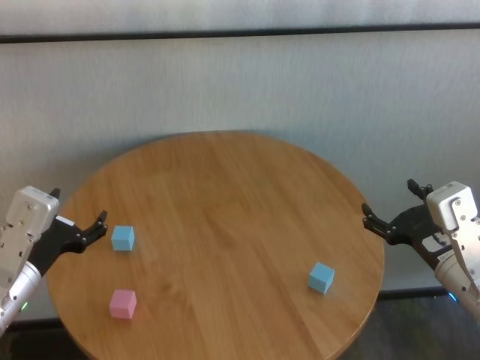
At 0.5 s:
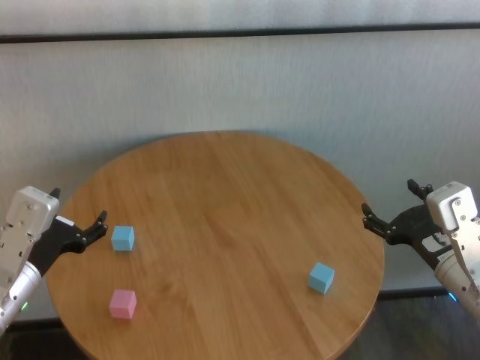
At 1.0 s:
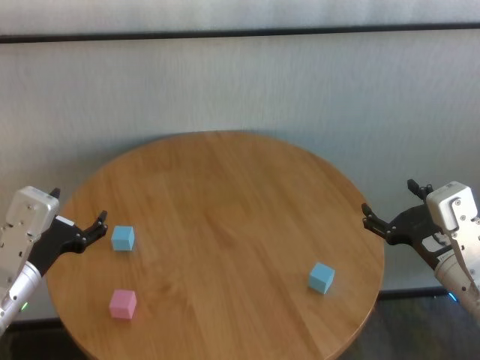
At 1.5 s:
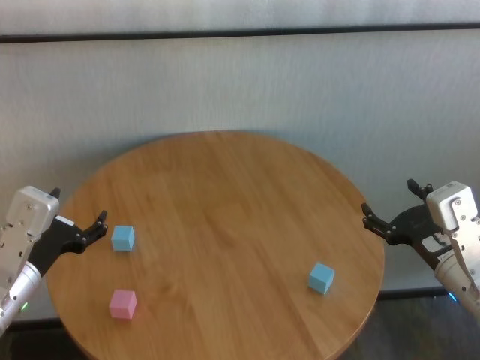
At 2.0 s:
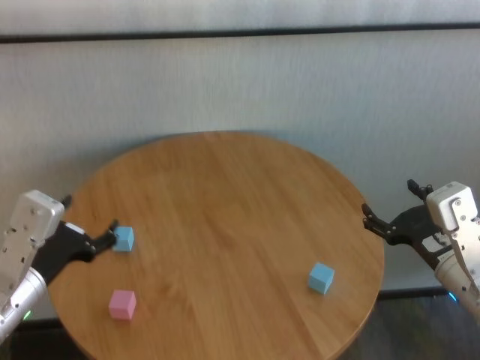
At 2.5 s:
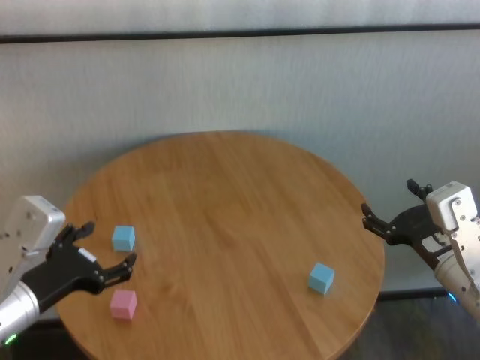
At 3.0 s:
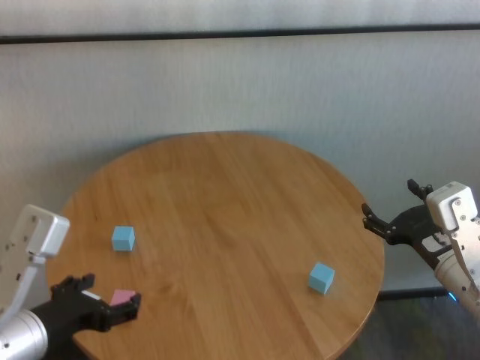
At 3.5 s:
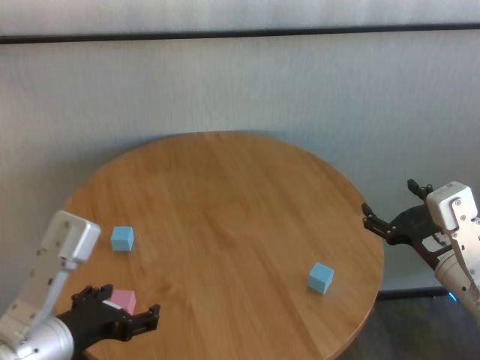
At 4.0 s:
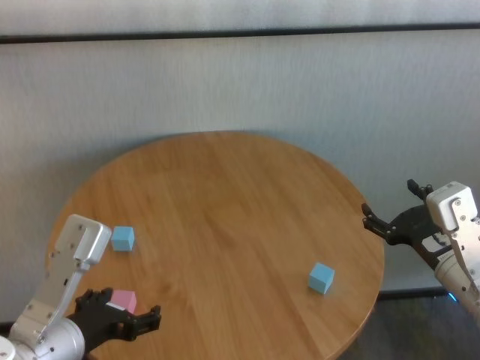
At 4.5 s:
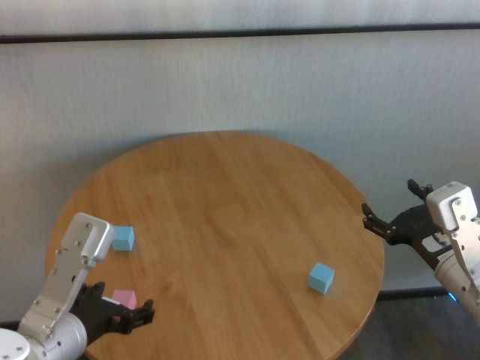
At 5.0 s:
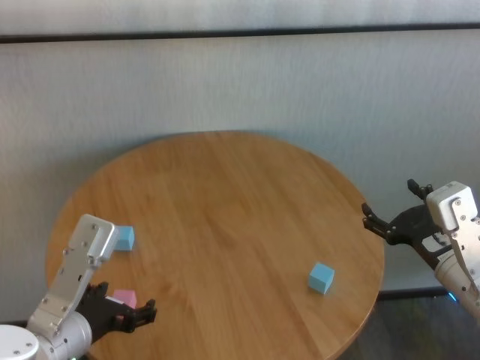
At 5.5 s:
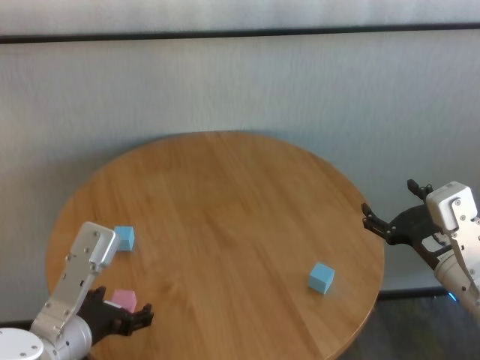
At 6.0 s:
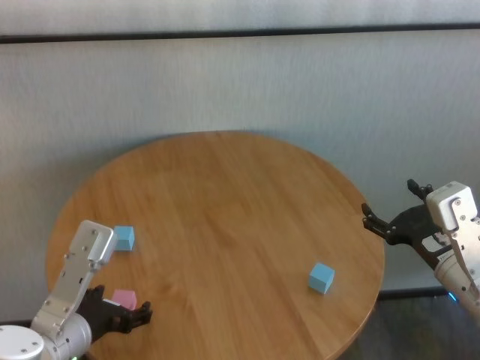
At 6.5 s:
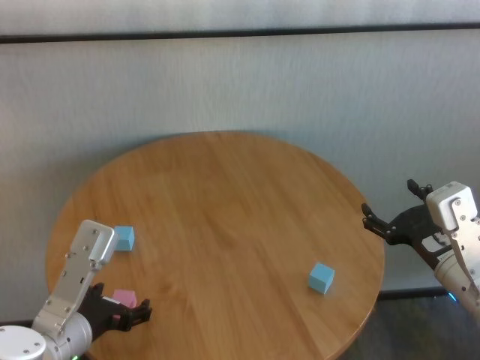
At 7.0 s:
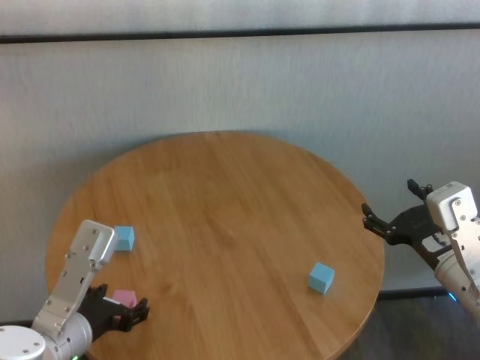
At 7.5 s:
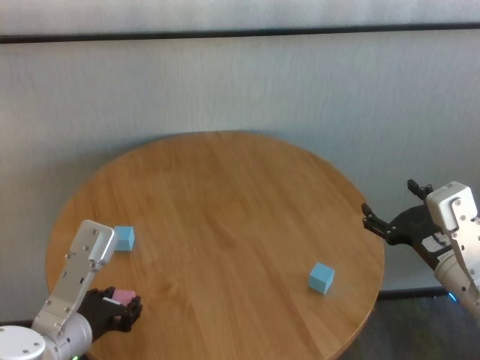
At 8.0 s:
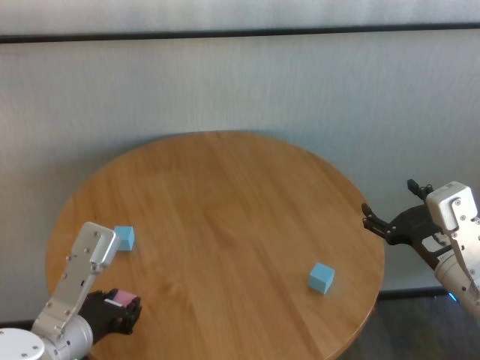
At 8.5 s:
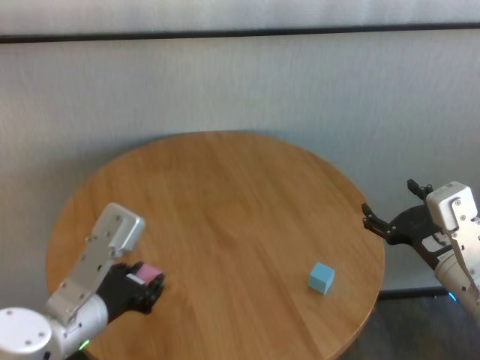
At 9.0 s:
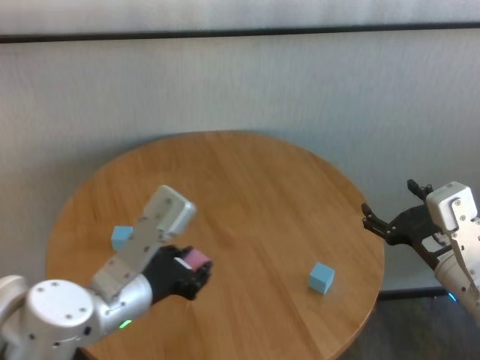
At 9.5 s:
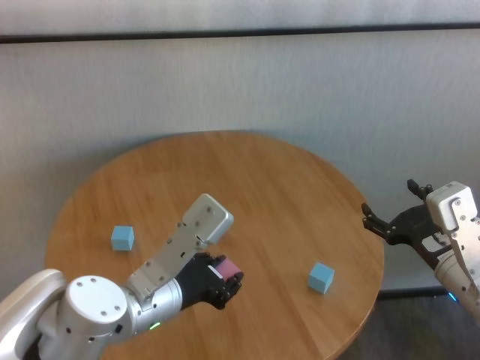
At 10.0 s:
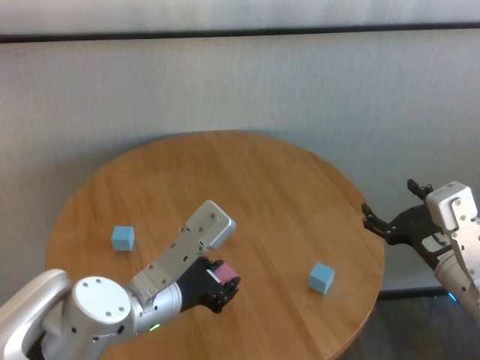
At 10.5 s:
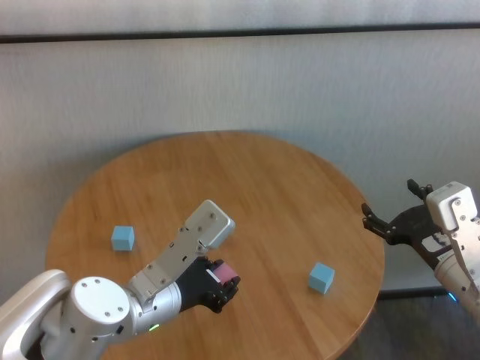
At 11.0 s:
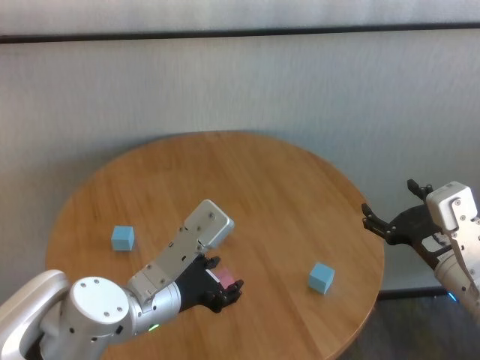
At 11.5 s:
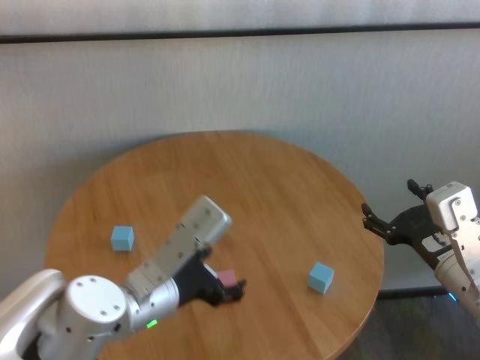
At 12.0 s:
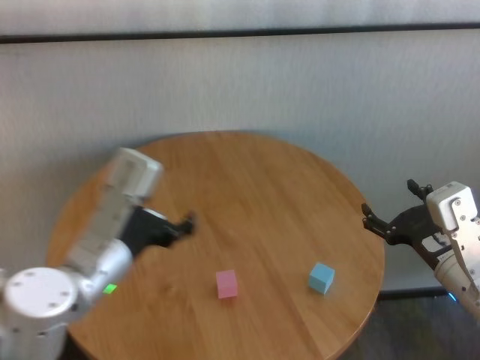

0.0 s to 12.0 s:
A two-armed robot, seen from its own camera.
Task of the whole recording: stack building blocks on the table.
Step, 0.0 to 7.5 s: Grasp the pink building block with left gripper.
Step, 8.0 to 11.0 s: Place the pink building block in the center of table with left gripper.

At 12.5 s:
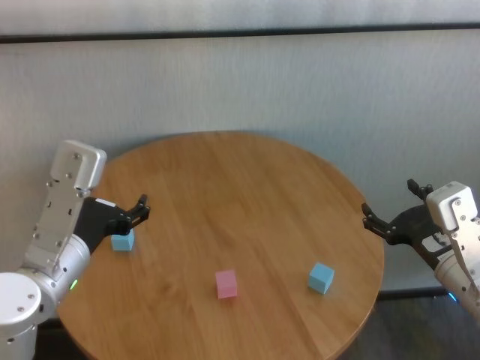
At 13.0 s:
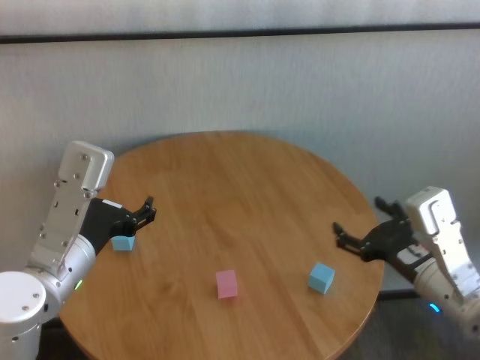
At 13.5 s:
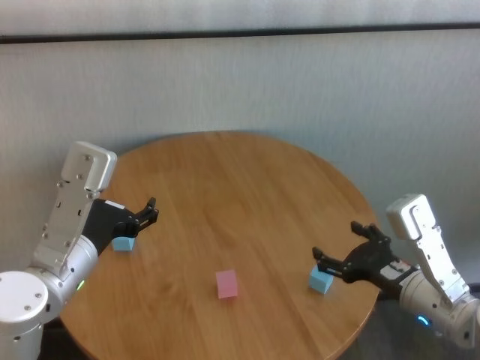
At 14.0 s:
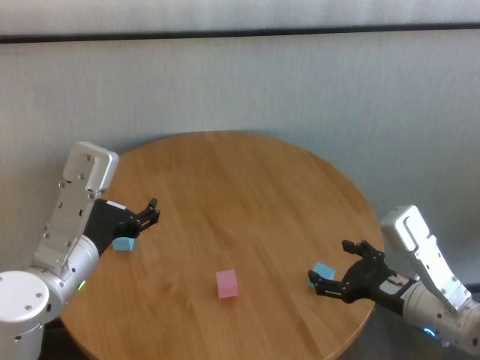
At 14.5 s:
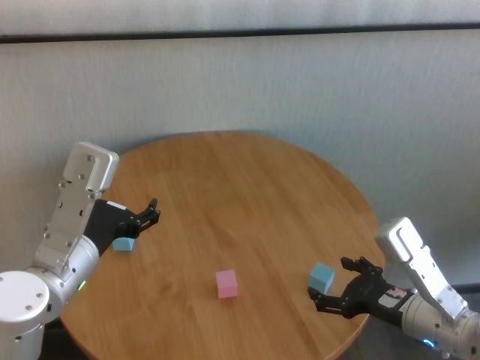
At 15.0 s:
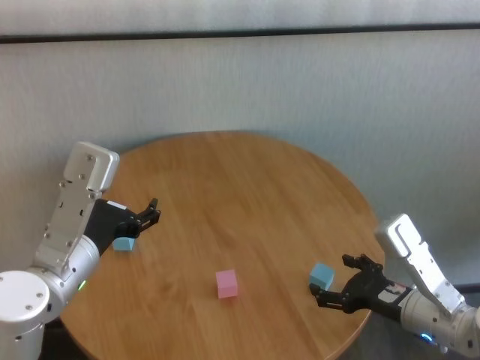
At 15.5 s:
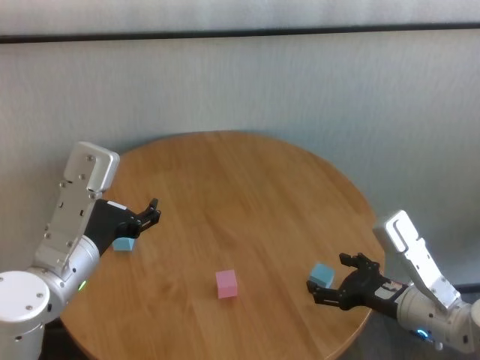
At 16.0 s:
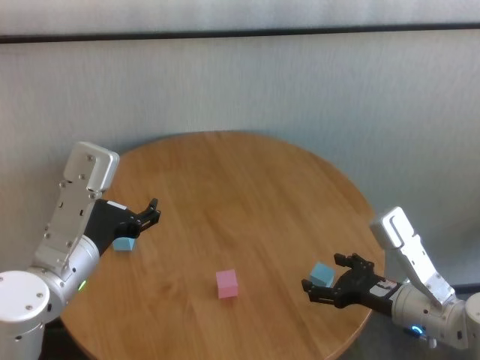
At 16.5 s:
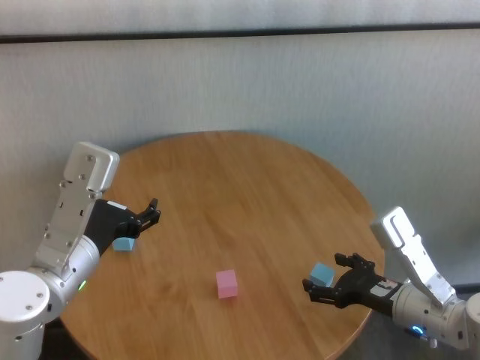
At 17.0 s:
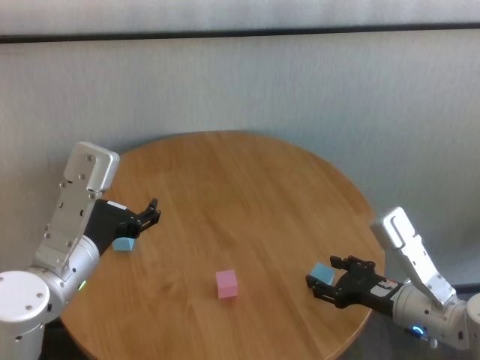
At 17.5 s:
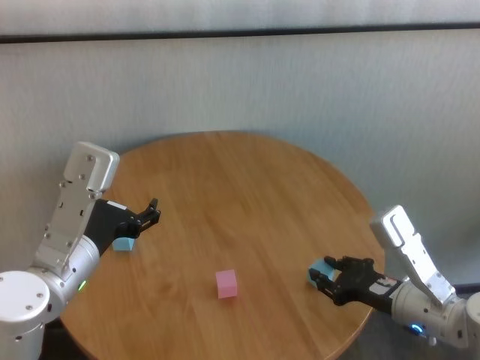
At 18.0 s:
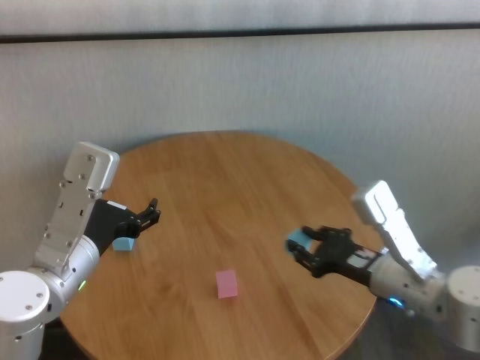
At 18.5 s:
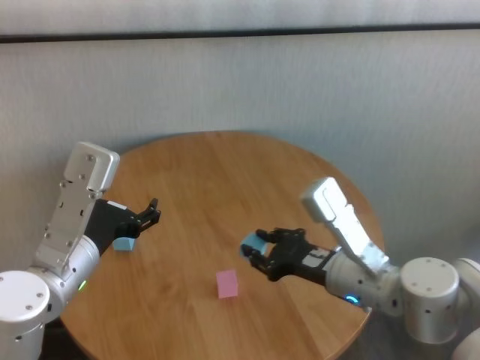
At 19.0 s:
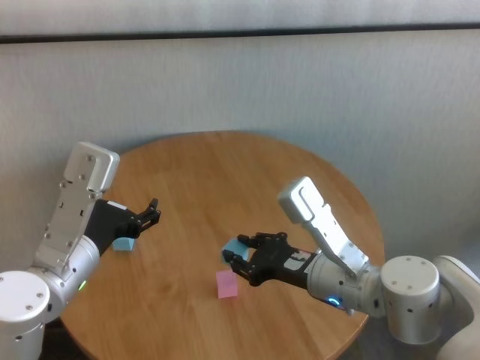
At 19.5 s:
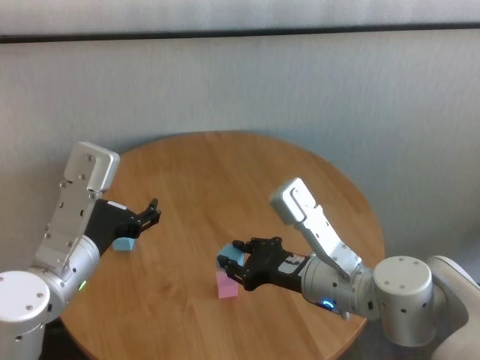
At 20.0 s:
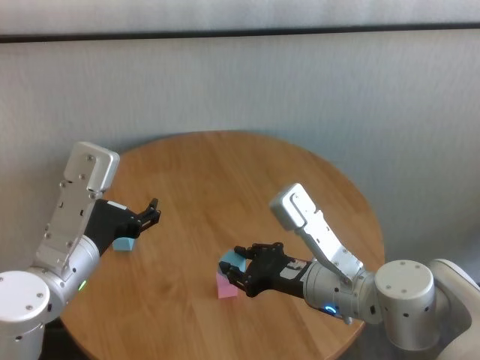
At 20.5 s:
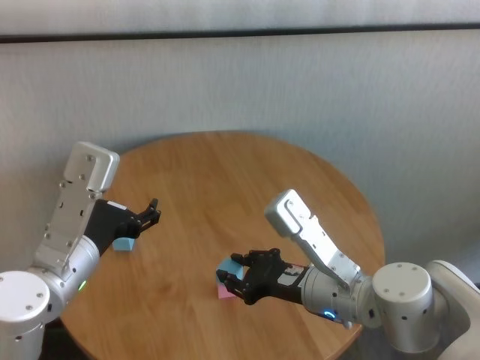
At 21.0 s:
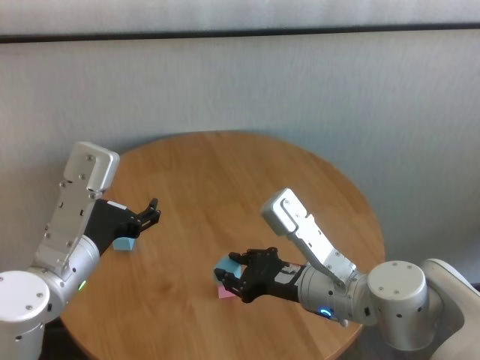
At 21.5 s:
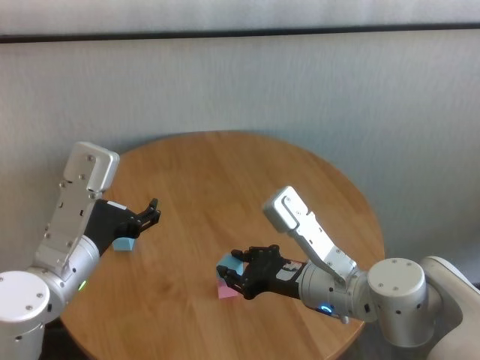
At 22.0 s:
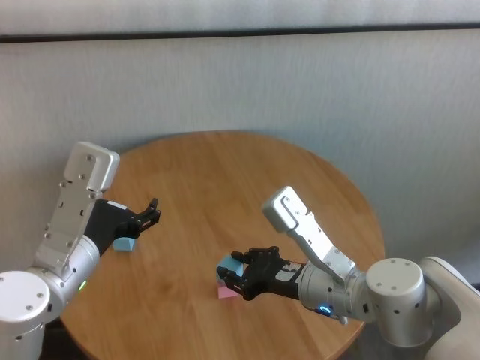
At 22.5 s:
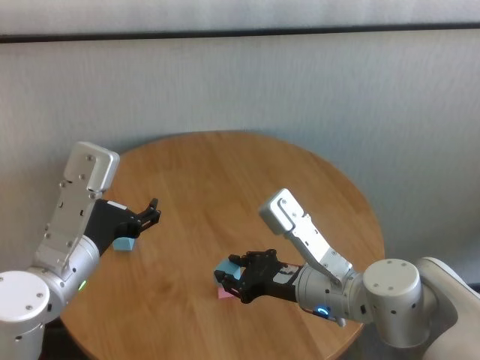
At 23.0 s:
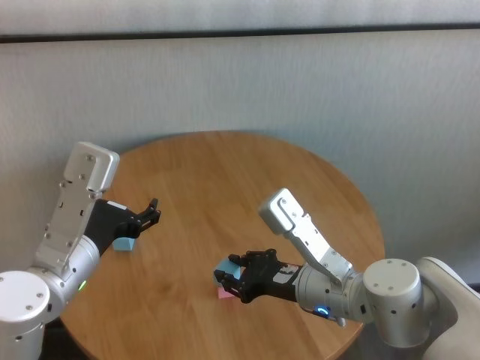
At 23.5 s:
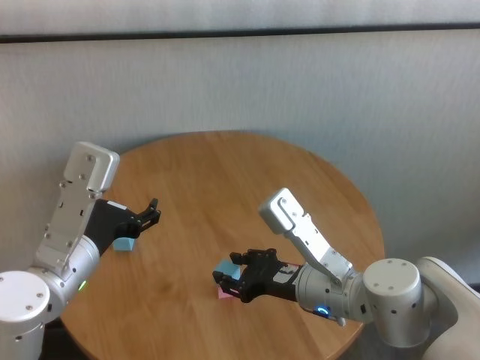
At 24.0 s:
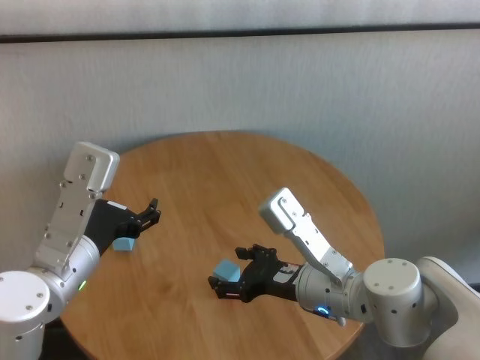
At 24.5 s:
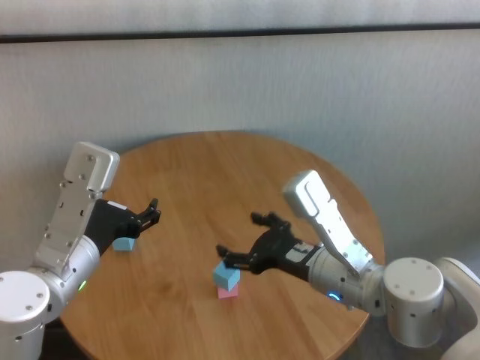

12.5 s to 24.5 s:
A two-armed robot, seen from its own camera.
Task of the whole recording: stack building blocks on the table.
Step, 12.5 to 17.0 s: Grasp the blue building block with right gripper.
Step, 17.5 to 23.5 s: Place the blue building block on the pink building blocks with right gripper.

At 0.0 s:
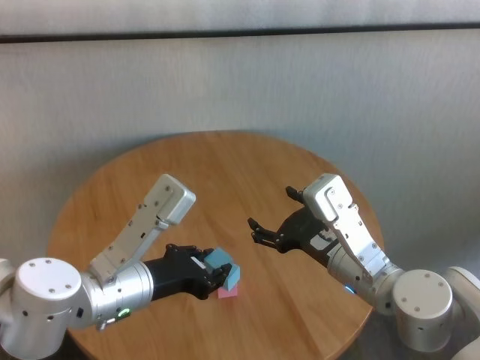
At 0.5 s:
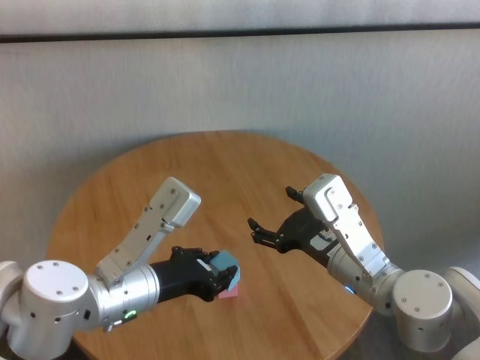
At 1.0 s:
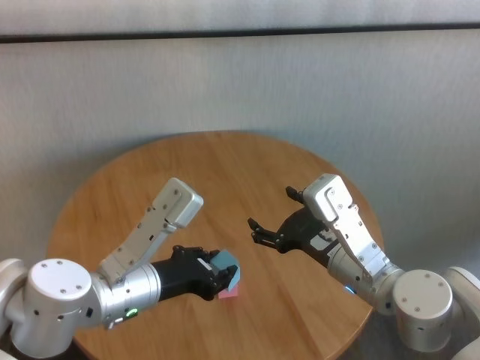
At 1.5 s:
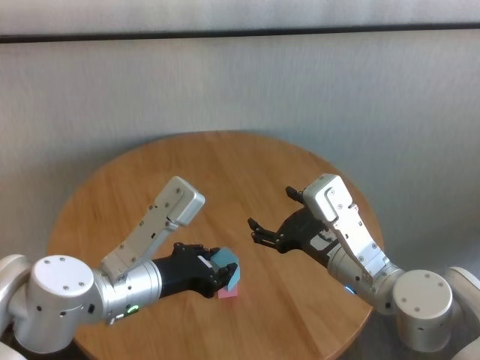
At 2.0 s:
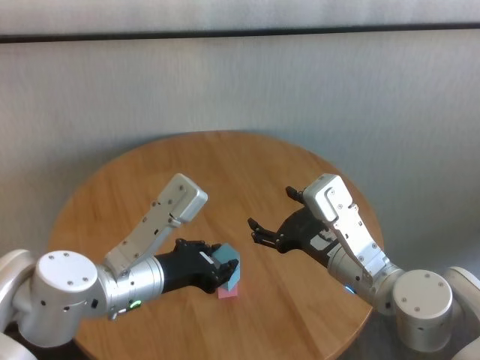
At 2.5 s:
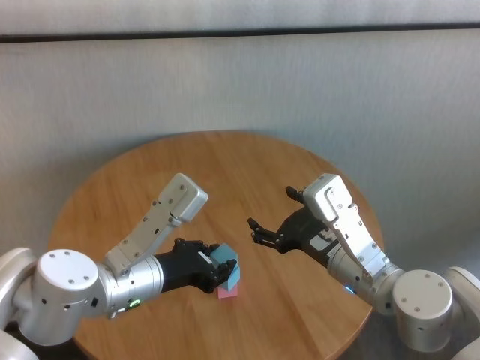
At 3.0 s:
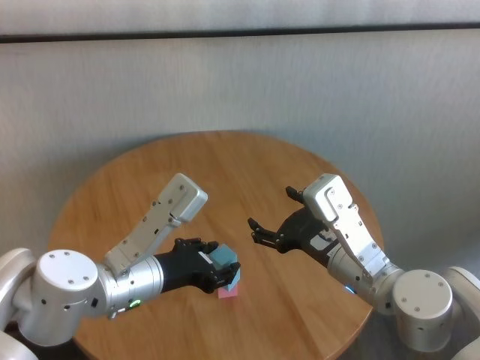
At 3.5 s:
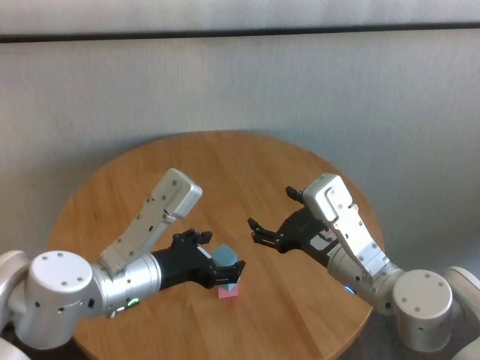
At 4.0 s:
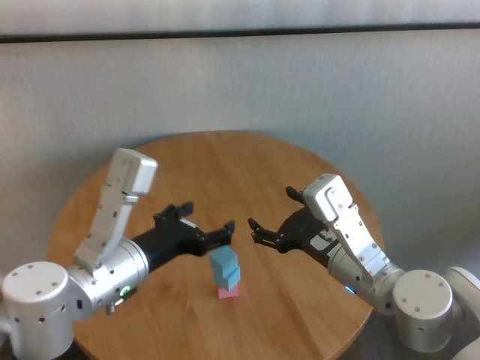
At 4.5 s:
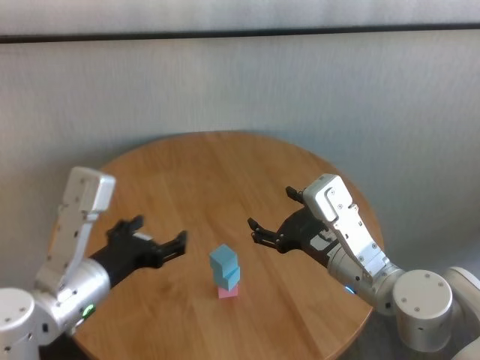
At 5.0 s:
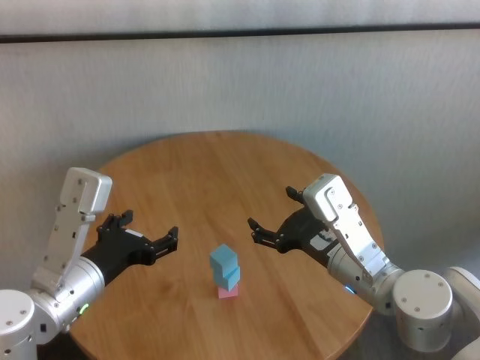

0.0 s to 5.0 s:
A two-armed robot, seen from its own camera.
Task of the whole recording: stack building blocks on the table.
Step, 0.0 to 3.0 s: Place the blue building block on the blue building blocks with left gripper.
